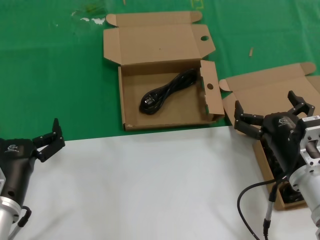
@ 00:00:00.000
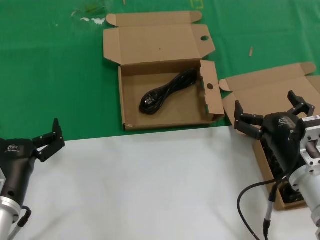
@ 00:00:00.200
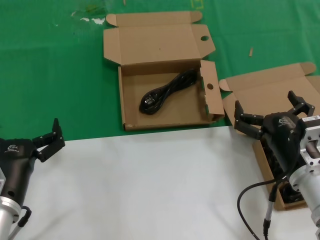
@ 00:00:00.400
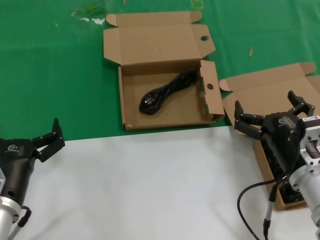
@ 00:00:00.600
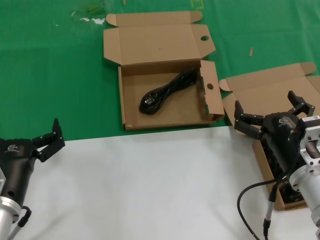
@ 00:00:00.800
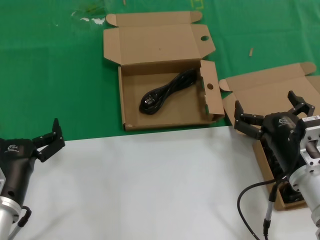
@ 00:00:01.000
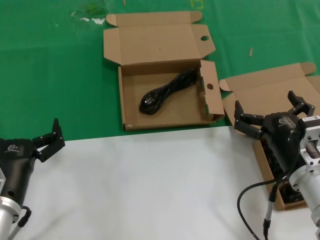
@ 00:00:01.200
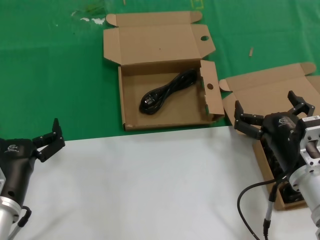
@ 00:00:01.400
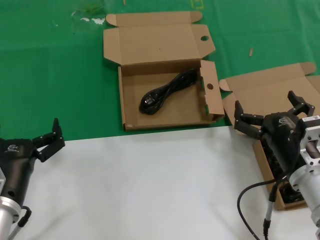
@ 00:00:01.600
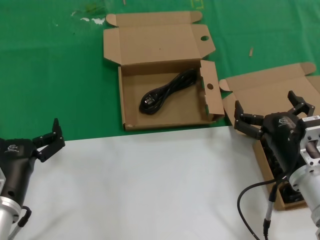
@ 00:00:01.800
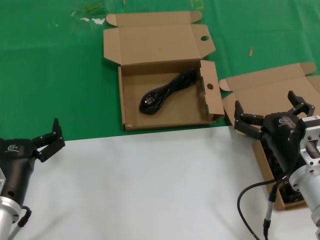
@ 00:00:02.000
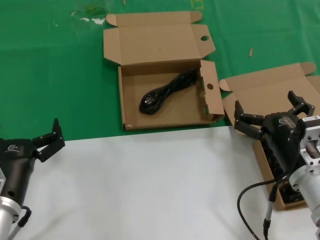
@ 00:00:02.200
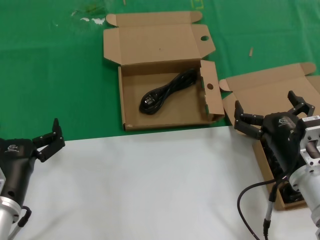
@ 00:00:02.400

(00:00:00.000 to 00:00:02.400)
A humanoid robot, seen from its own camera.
Task of the whole recording: take the parts from the box containing them and put them into an empty box.
00:00:00.000 - 00:00:02.400: Neither hand changes place.
